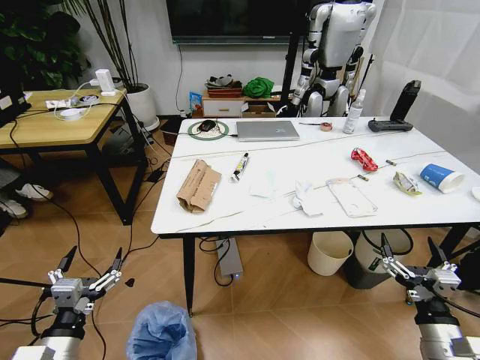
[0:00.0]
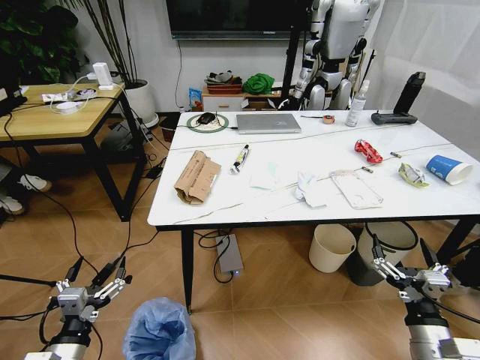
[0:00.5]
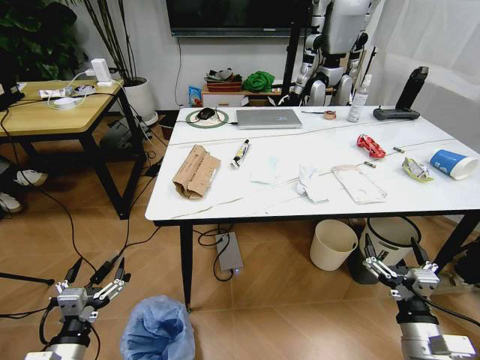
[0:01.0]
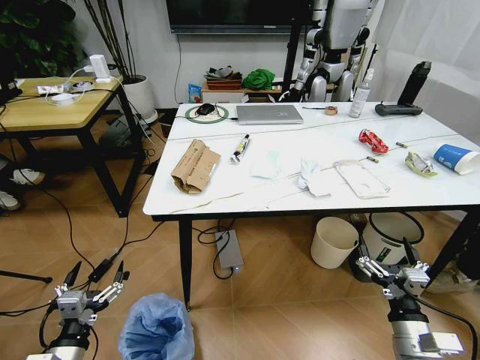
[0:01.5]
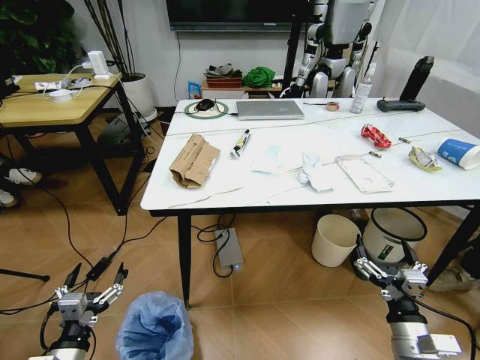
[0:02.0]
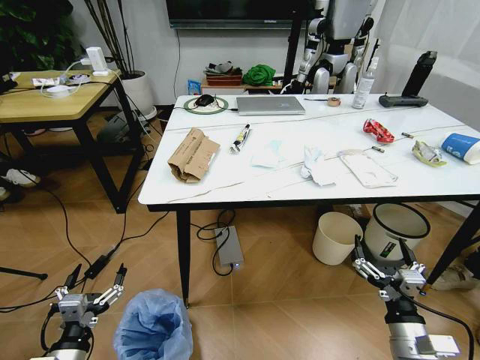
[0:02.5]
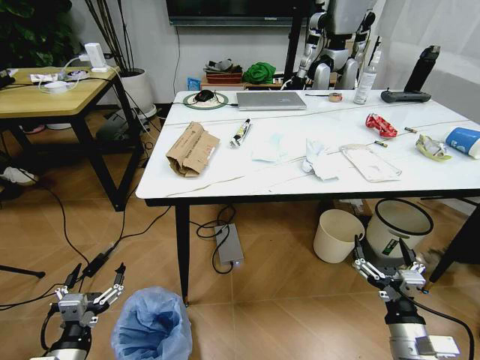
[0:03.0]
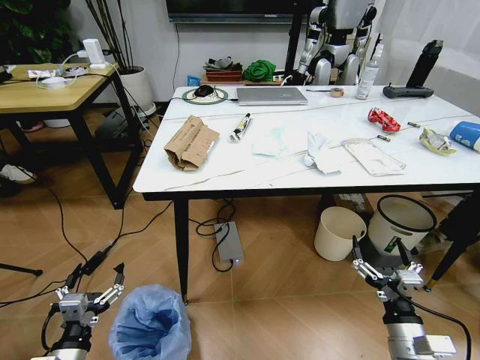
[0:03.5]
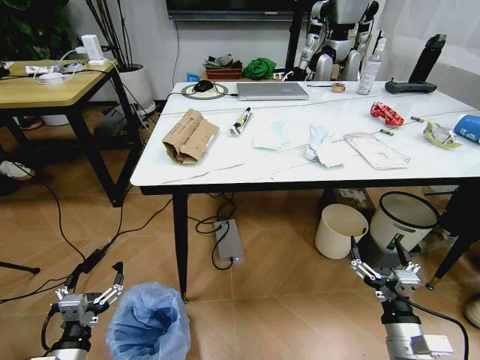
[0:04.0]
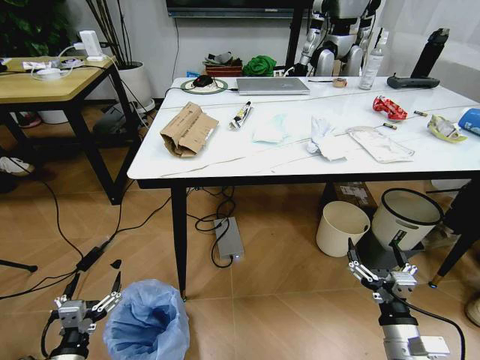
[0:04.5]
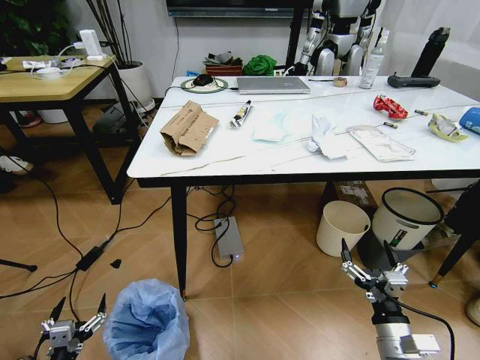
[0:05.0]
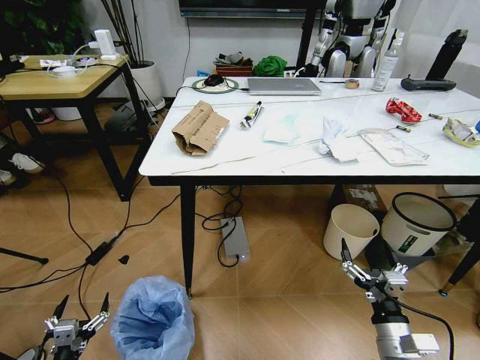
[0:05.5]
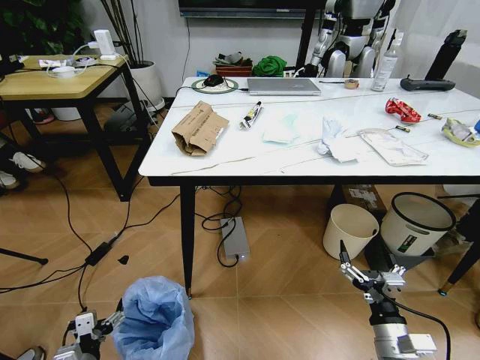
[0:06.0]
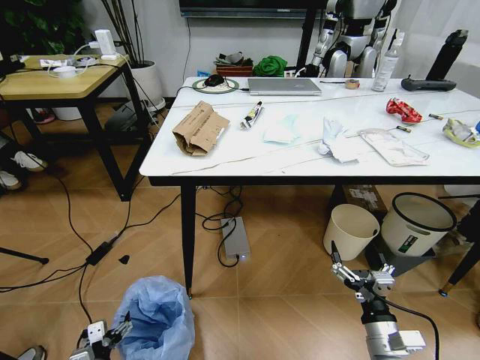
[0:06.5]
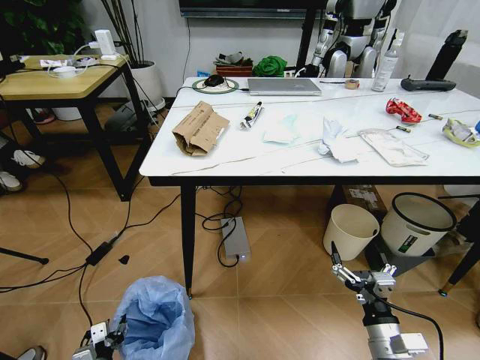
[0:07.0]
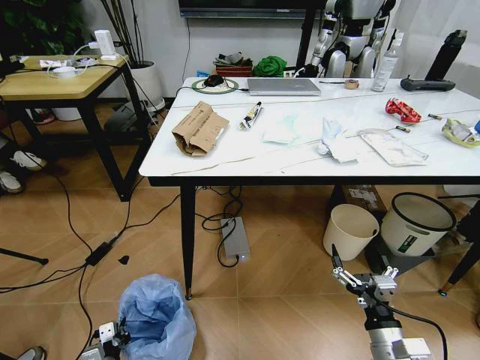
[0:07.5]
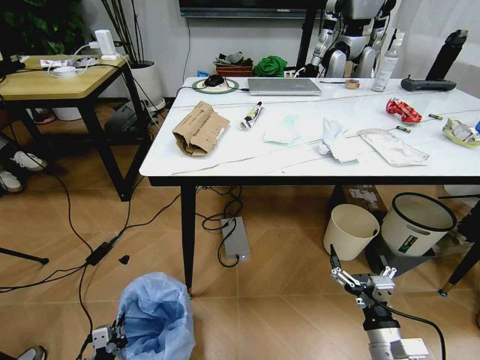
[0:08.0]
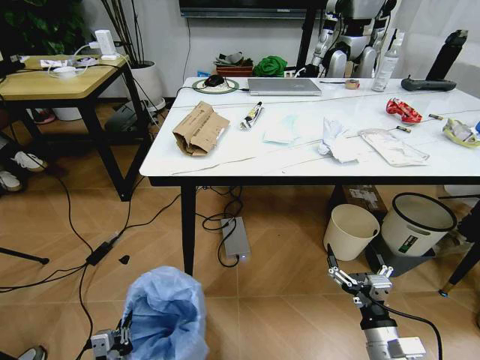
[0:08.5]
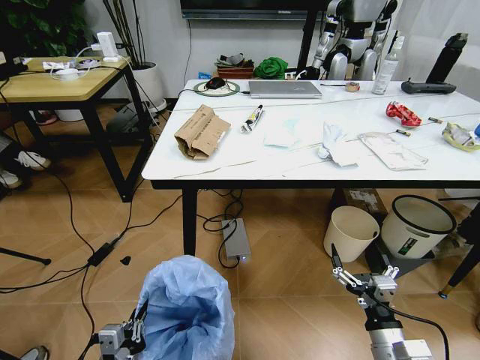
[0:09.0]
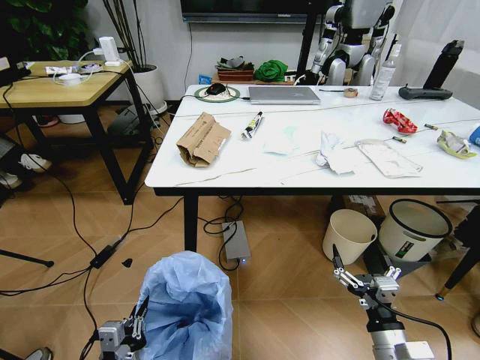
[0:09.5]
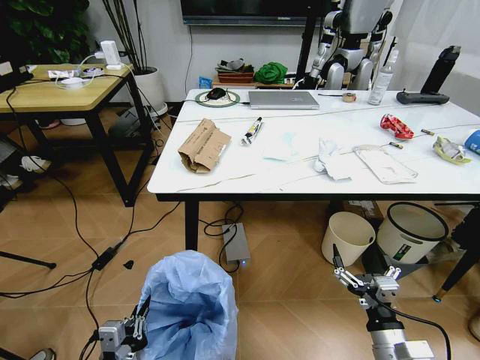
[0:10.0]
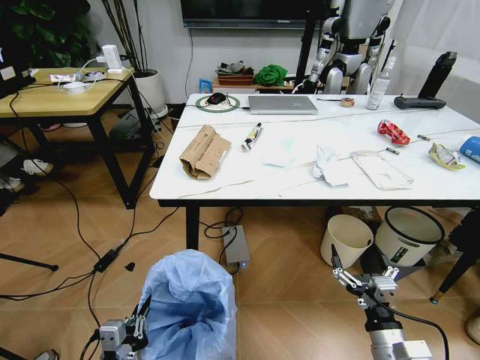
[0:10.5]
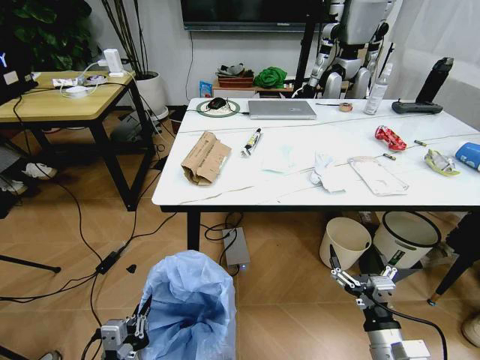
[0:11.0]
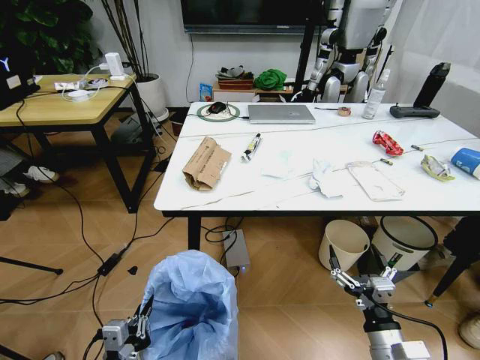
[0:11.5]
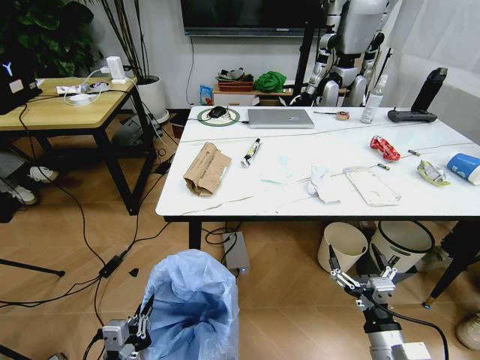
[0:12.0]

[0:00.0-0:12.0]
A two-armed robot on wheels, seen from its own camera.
Task of the whole recording: Pick up the trash bin and place the trash from the table into it.
0:04.0 to 0:06.0: The left gripper heads downward, covering about 10 cm.
0:06.0 to 0:08.0: The left gripper travels downward by roughly 10 cm, and closes.
0:08.0 to 0:10.0: The left gripper heads upward and to the right, covering approximately 20 cm.

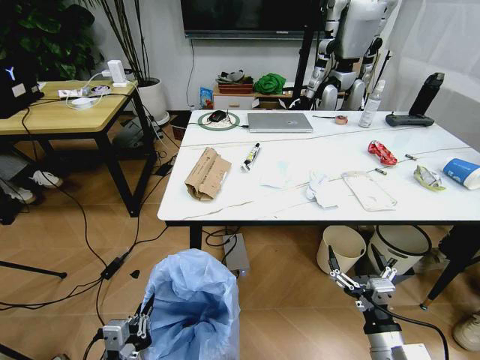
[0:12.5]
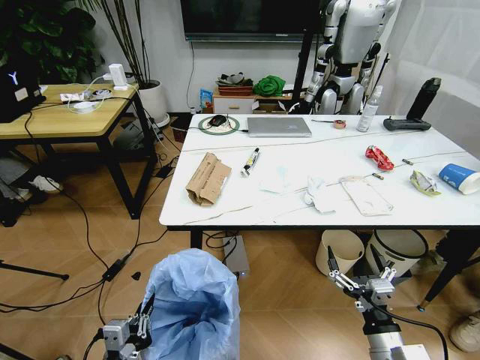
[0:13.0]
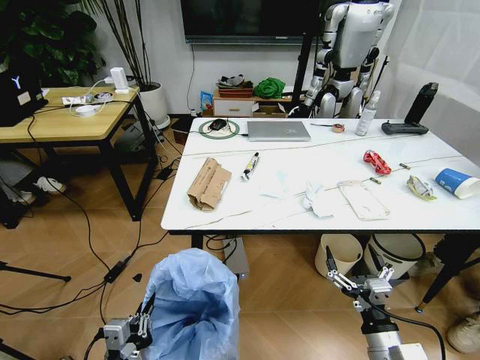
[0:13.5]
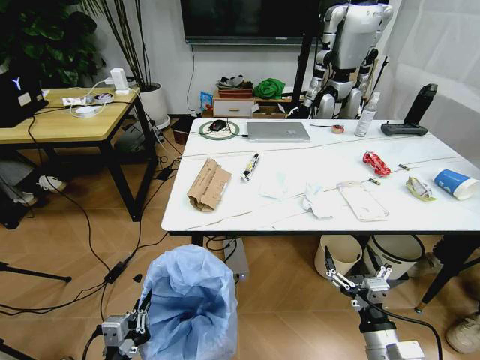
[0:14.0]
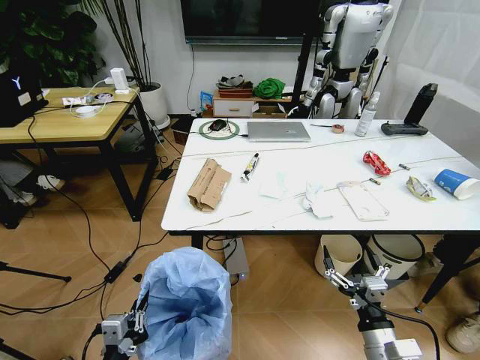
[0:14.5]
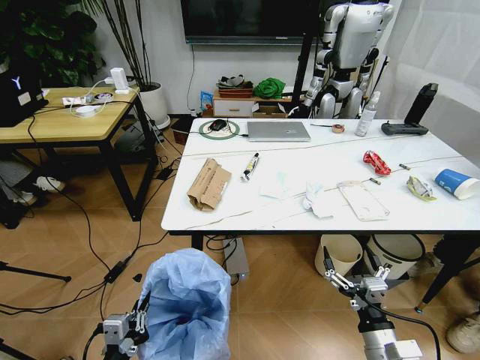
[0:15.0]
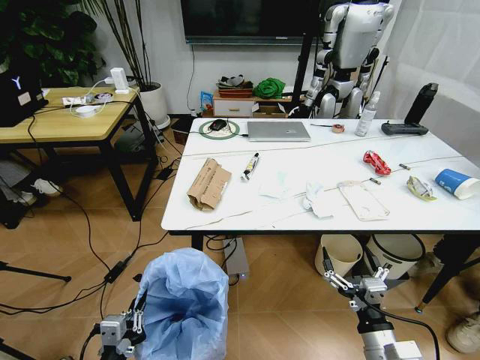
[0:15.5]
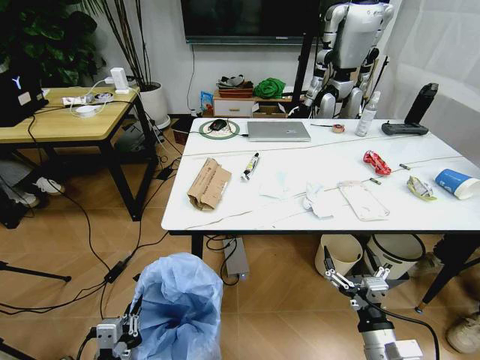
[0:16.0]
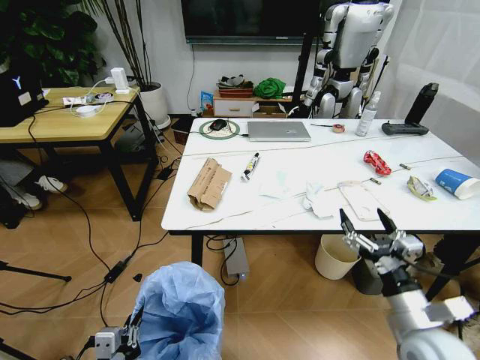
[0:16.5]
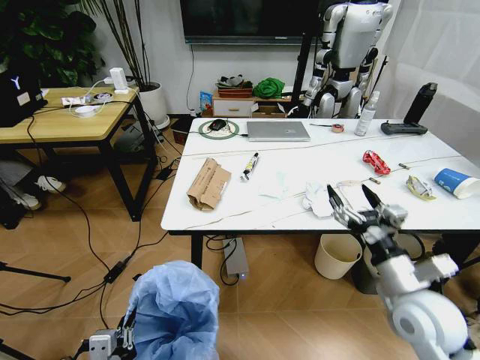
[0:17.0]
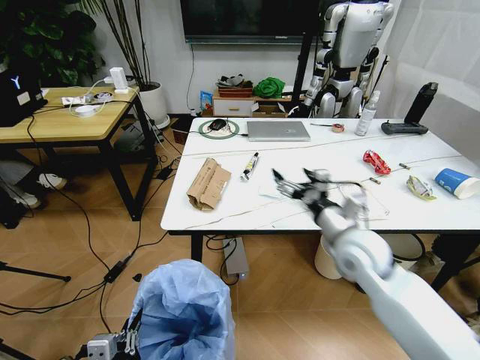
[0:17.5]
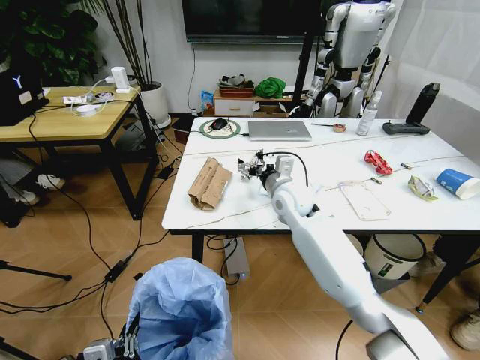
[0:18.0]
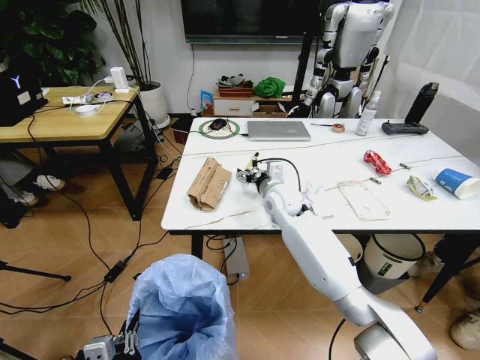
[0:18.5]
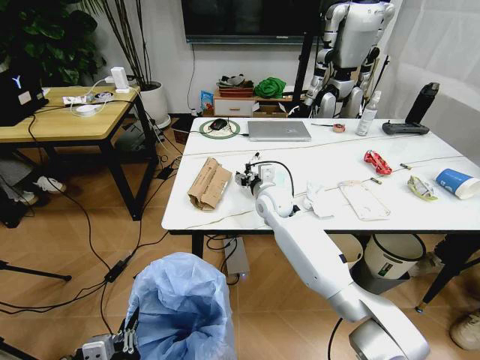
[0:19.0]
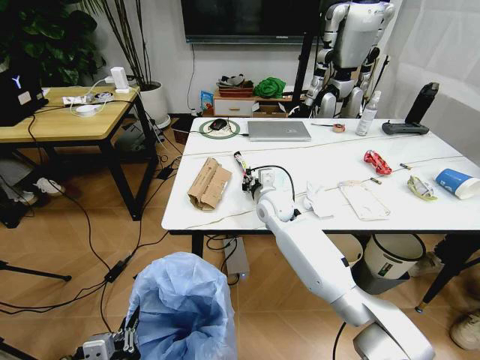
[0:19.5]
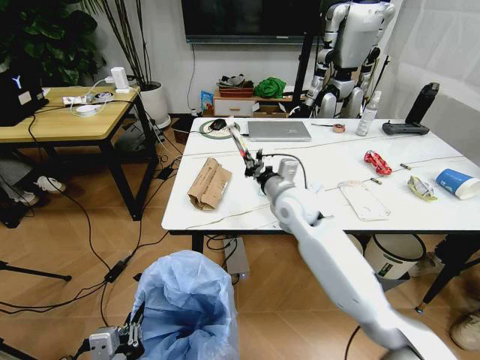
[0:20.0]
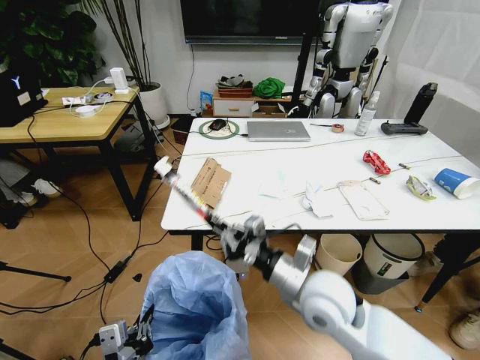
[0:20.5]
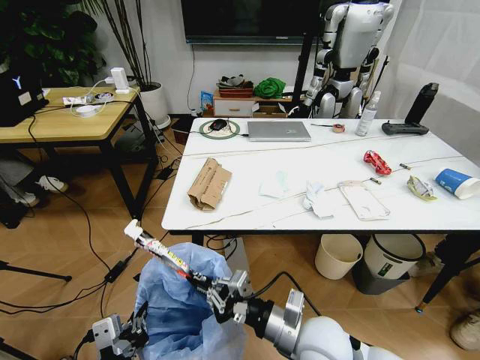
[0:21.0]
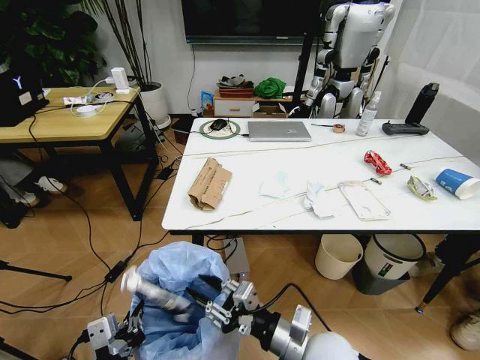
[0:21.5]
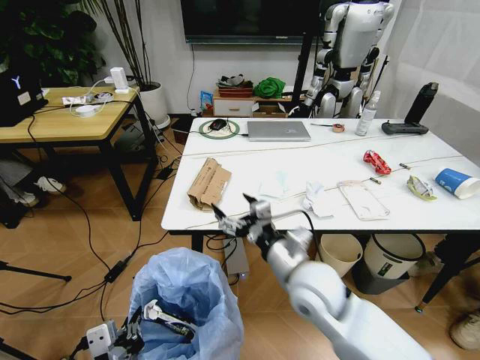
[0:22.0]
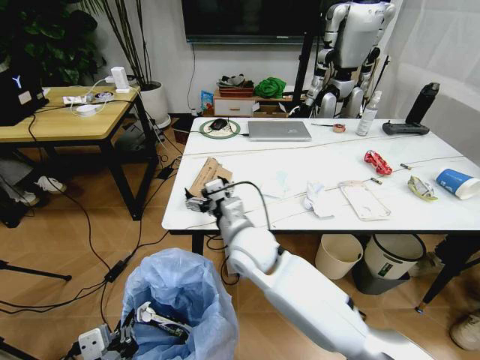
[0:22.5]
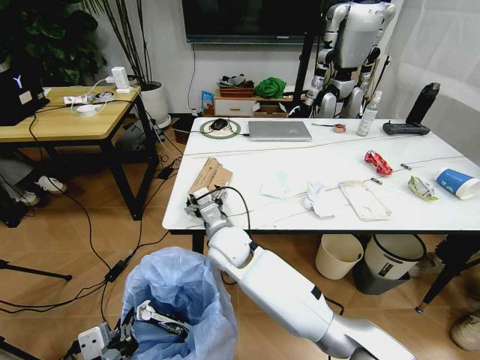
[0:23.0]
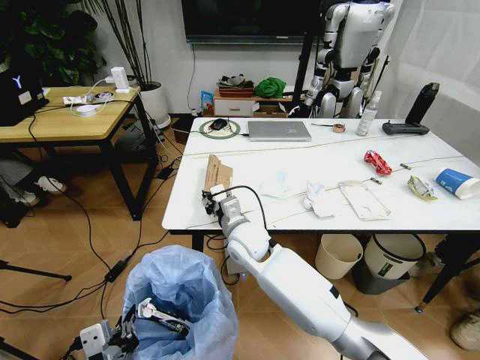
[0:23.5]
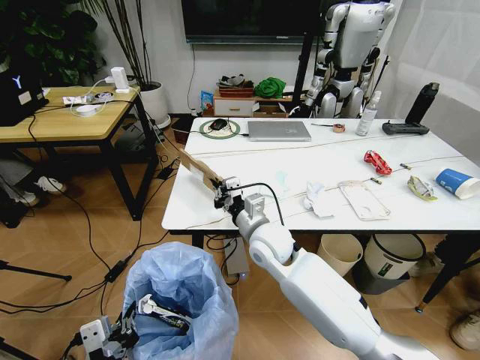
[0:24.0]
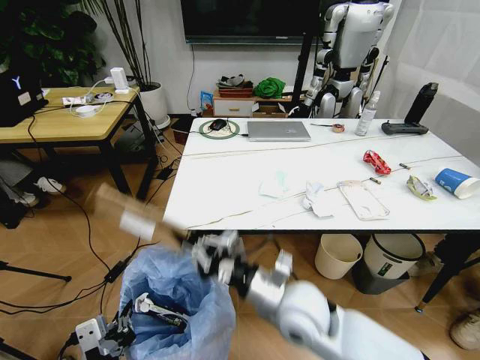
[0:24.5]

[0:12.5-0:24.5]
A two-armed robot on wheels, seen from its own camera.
Task of the whole recording: Pick up the trash bin and place the trash from the table into it.
0:14.5 to 0:16.5: The right gripper heads upward, covering some 10 cm.
0:16.5 to 0:18.5: The left gripper changes place by approximately 5 cm. Meanwhile the right gripper shifts some 40 cm forward and to the left.
0:18.5 to 0:20.5: The right gripper is displaced backward by approximately 25 cm, and closes up.
0:20.5 to 0:22.5: The right gripper goes approximately 15 cm to the left and forward, and opens its fingers.
0:22.5 to 0:24.5: The right gripper shifts some 15 cm backward and to the right, and closes its fingers.

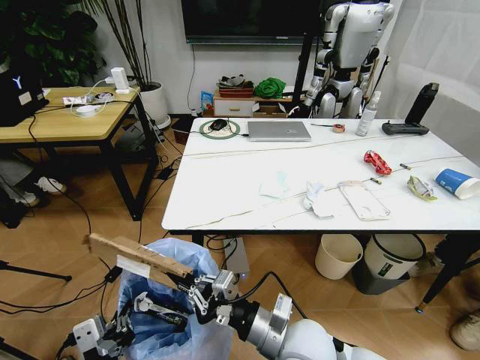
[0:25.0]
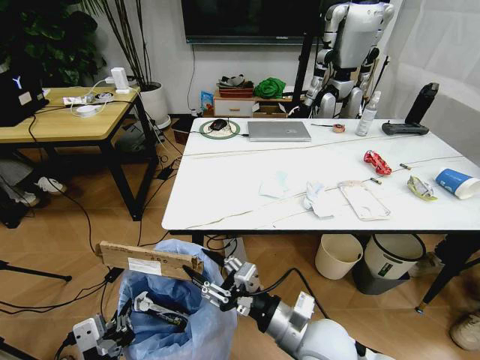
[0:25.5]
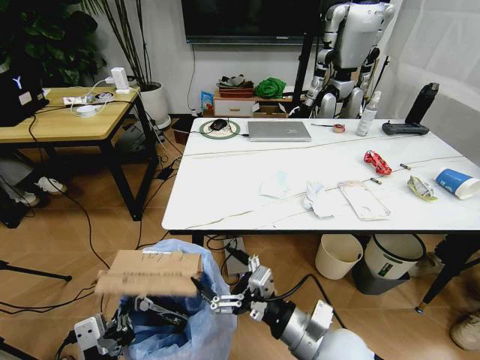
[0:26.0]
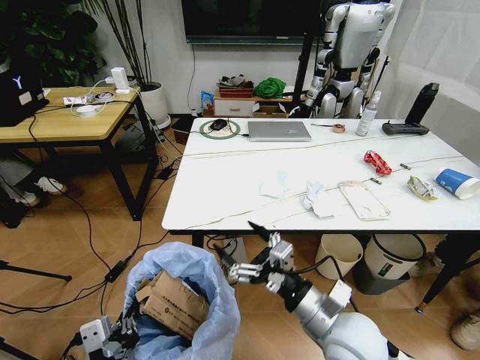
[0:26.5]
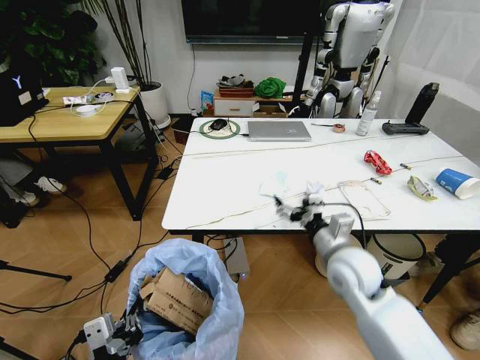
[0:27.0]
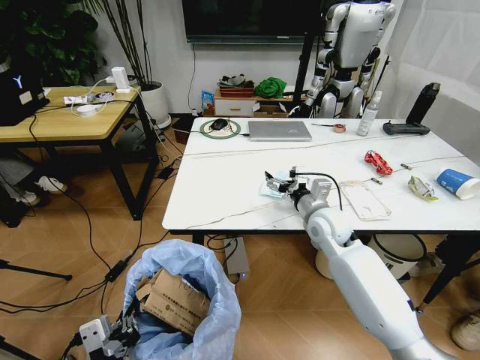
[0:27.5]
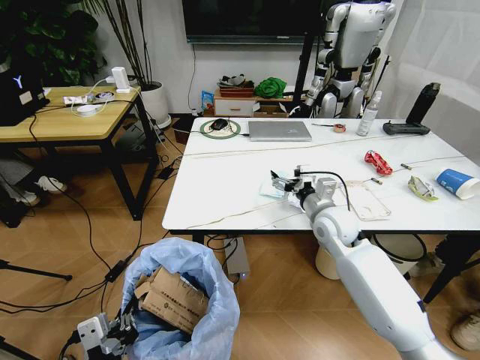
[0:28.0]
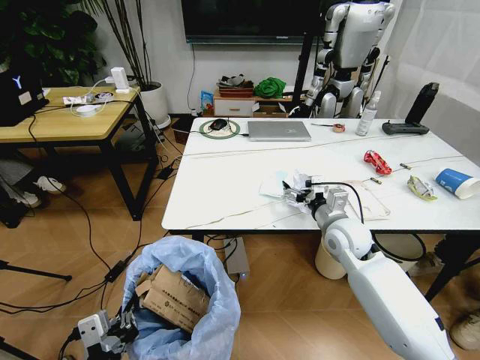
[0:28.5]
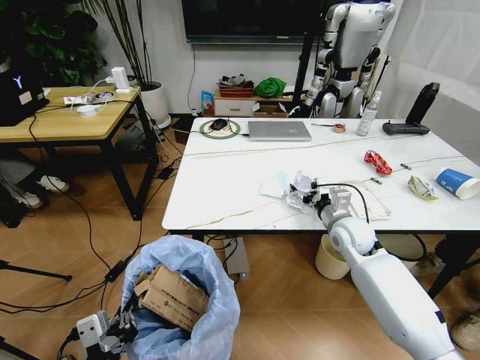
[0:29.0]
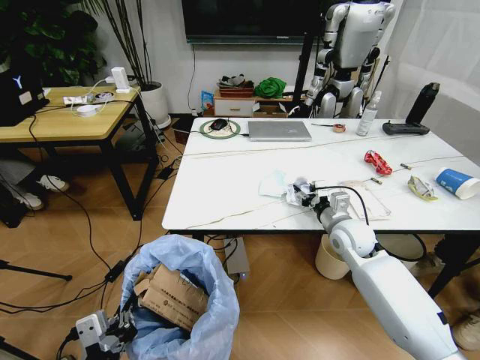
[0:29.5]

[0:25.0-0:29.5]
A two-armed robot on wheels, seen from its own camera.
Task of the whole recording: Pick up the trash bin and place the trash from the table into it.
0:25.0 to 0:27.0: The right gripper heads forward and to the right, covering some 20 cm, and opens up.
0:27.0 to 0:29.5: The right gripper shifts some 10 cm forward, and closes up.
